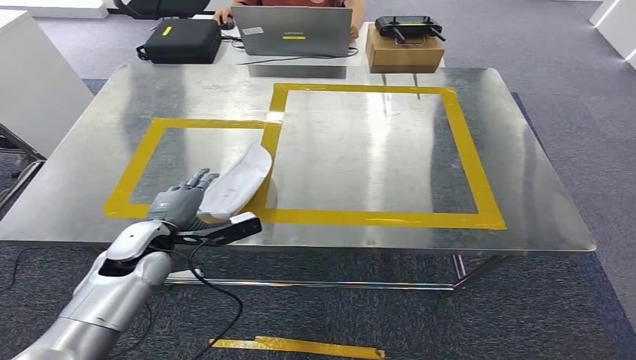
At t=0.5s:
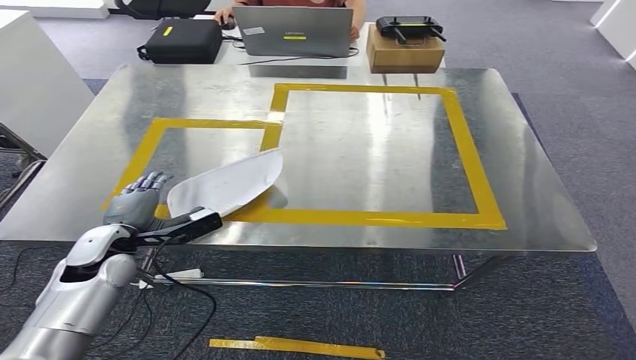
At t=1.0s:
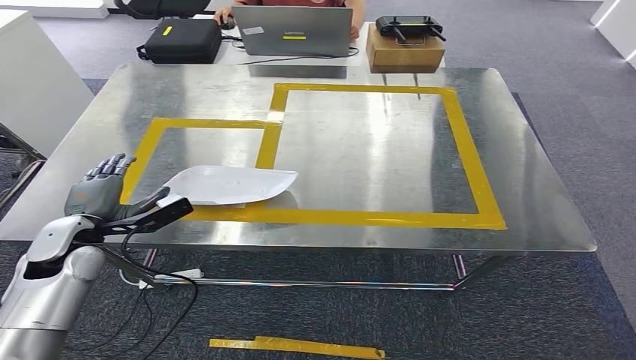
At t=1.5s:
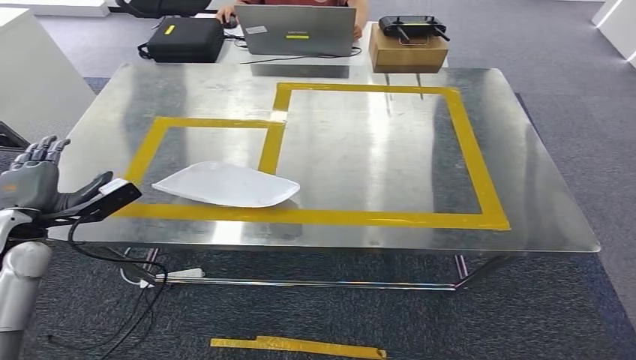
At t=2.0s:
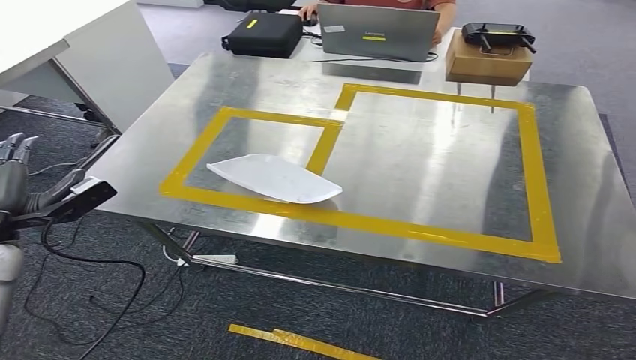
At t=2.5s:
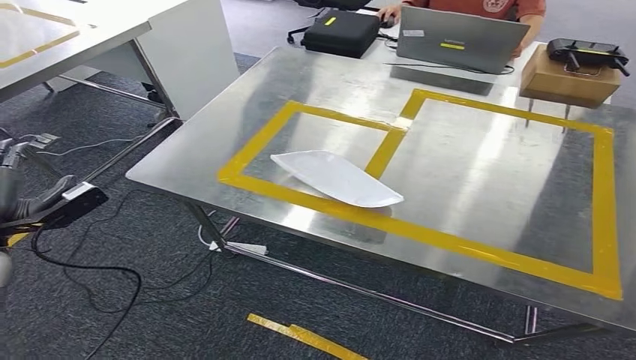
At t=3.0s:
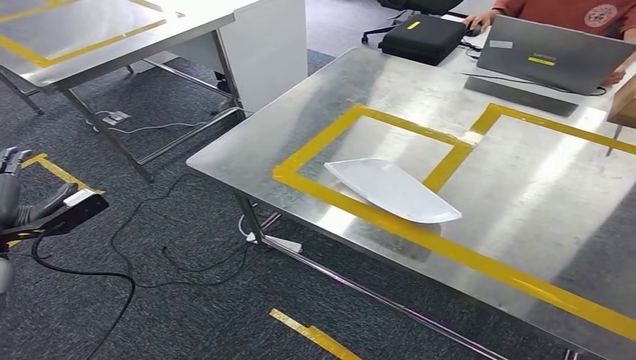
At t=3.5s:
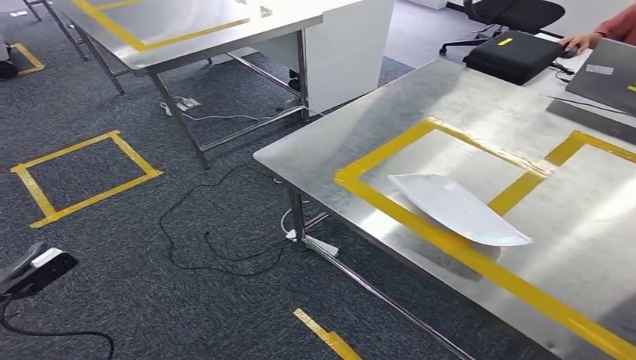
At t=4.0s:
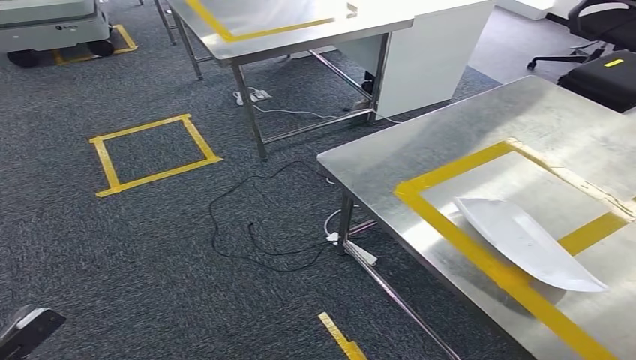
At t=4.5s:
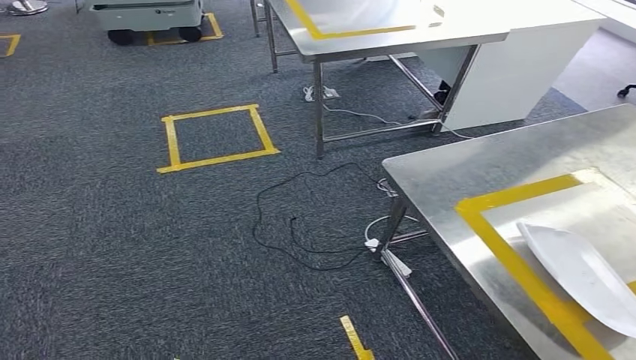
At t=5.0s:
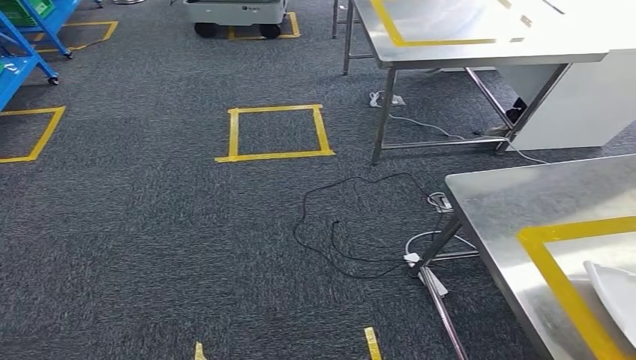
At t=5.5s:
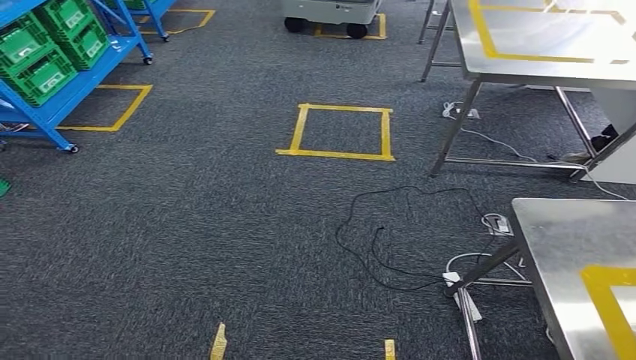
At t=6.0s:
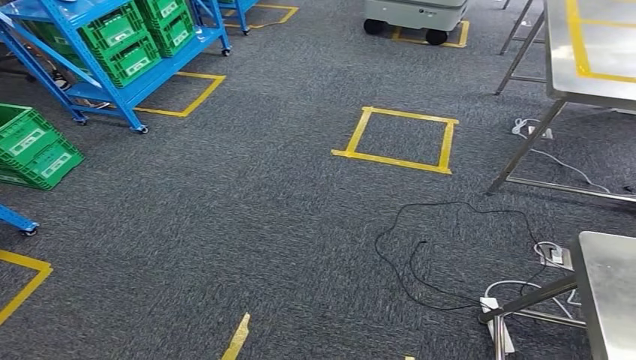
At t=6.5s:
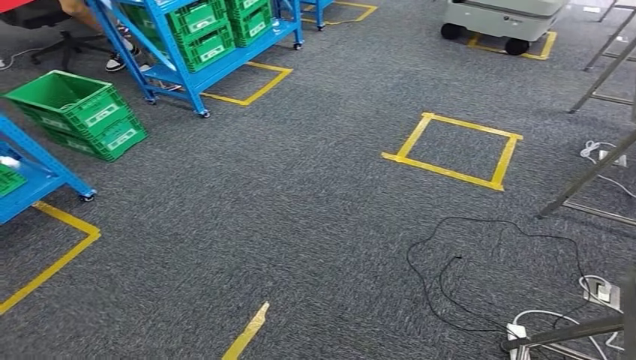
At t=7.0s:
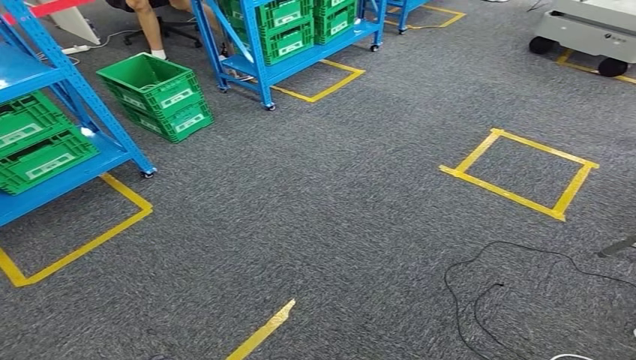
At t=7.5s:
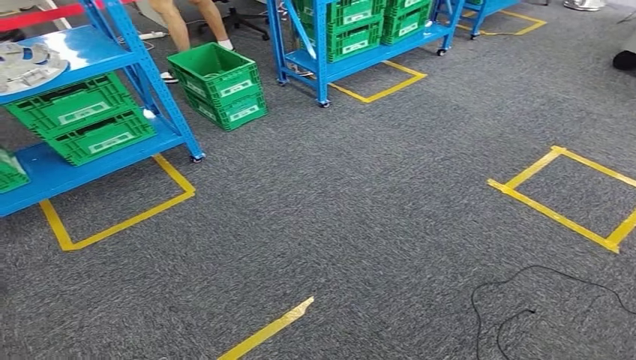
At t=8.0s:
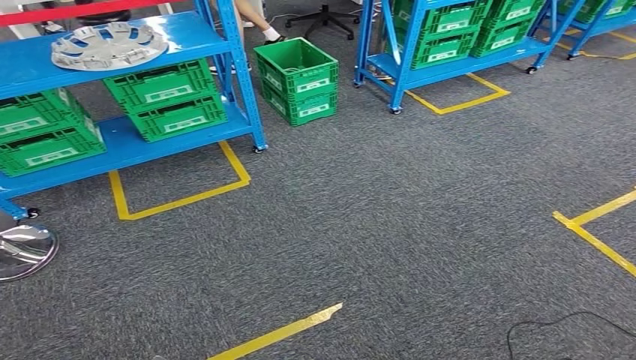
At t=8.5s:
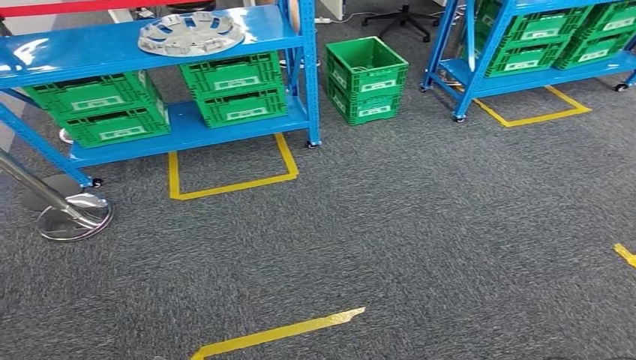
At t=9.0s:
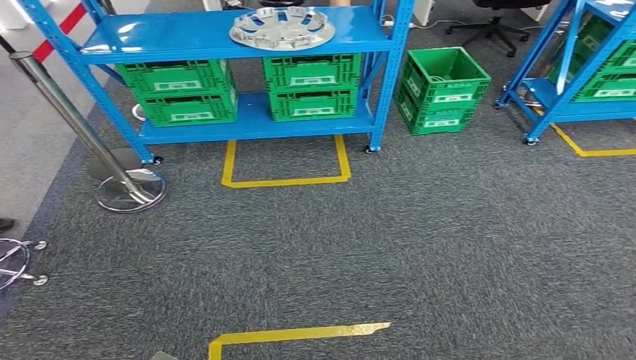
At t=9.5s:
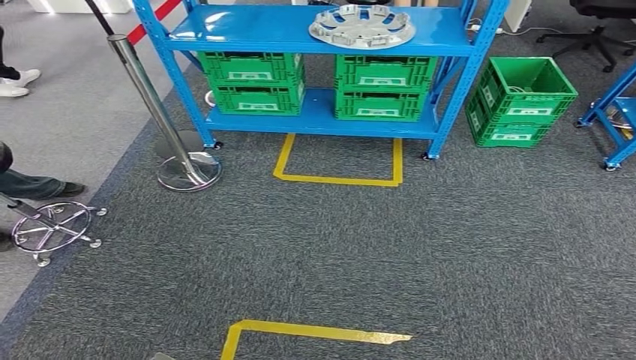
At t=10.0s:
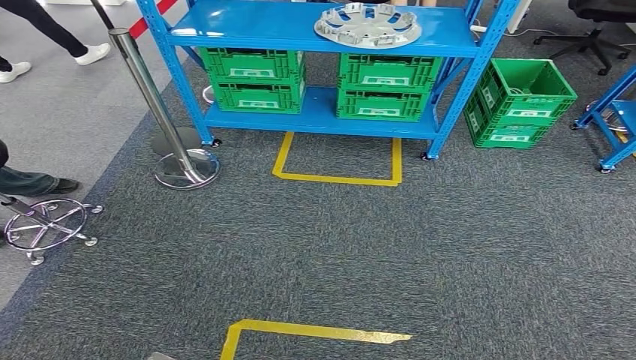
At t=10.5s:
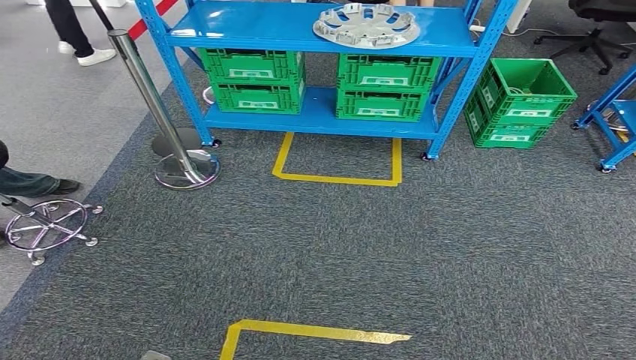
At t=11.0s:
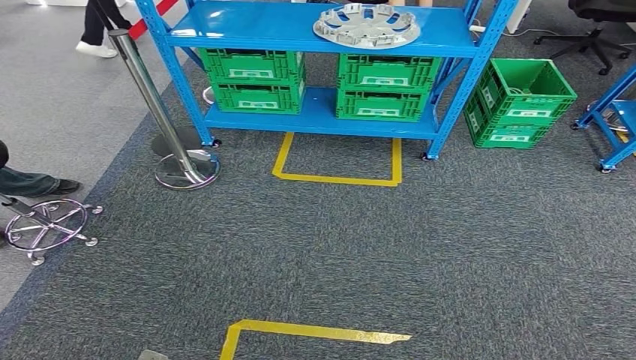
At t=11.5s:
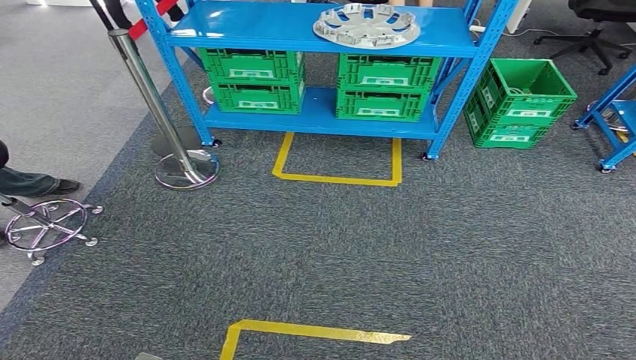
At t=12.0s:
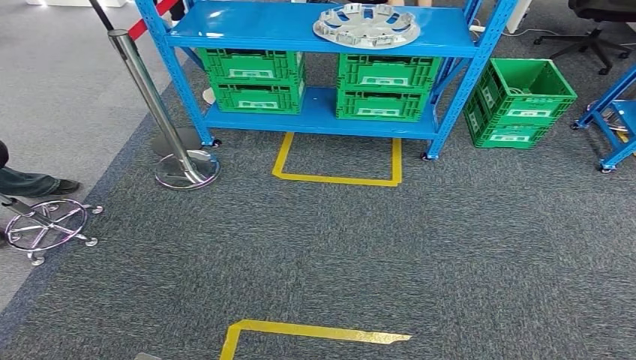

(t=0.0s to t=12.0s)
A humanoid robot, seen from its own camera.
Step, t=0.0s - t=2.5s: Insert the small parts into the corresponding slots on the workbench.
t=10.0s - t=12.0s: The hands stay close to where they were, moving slightly.

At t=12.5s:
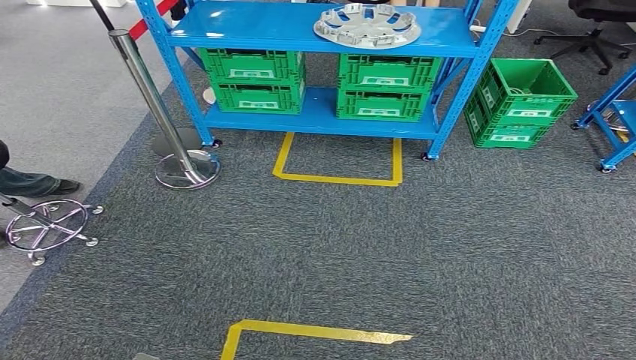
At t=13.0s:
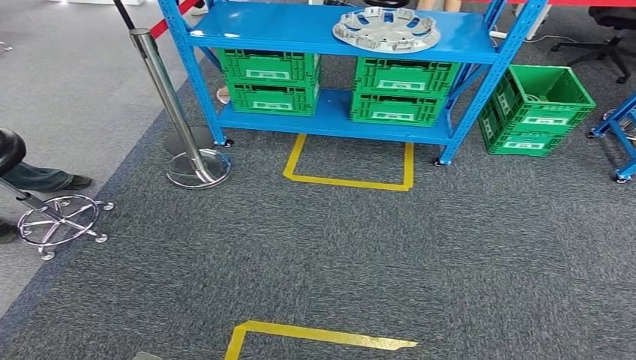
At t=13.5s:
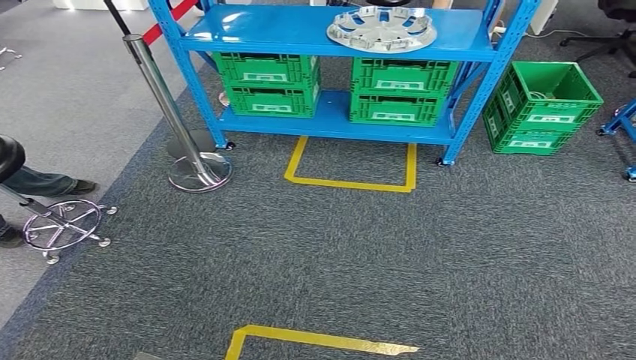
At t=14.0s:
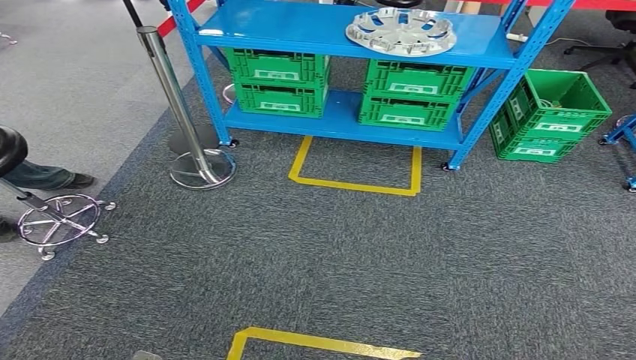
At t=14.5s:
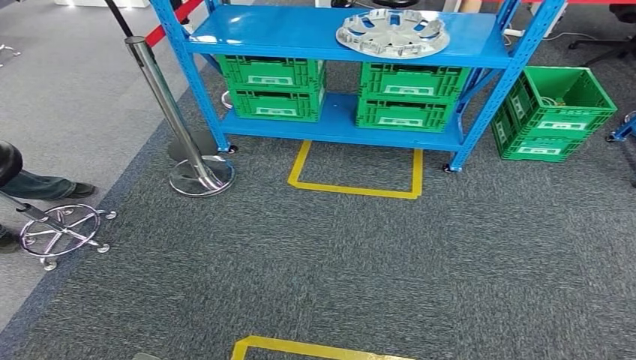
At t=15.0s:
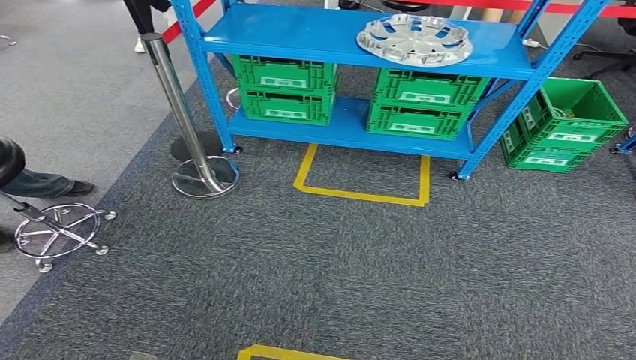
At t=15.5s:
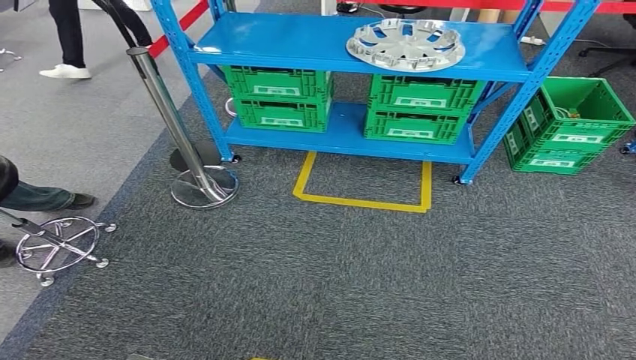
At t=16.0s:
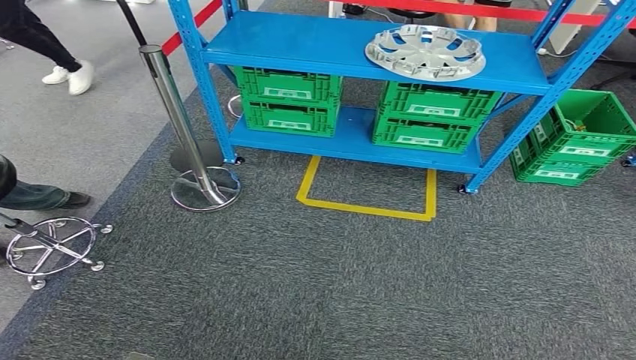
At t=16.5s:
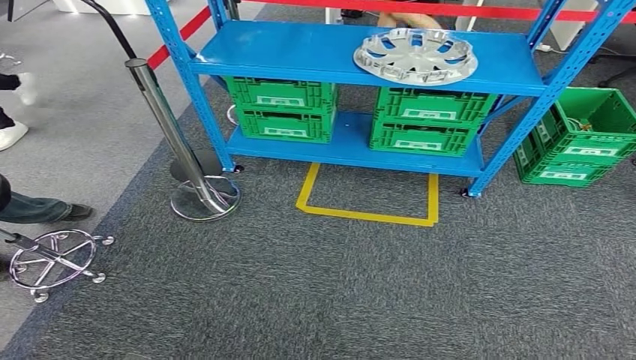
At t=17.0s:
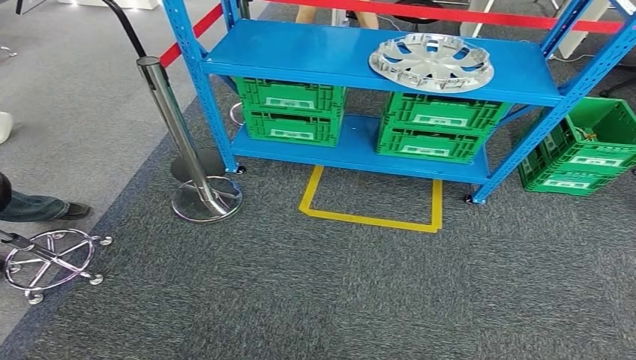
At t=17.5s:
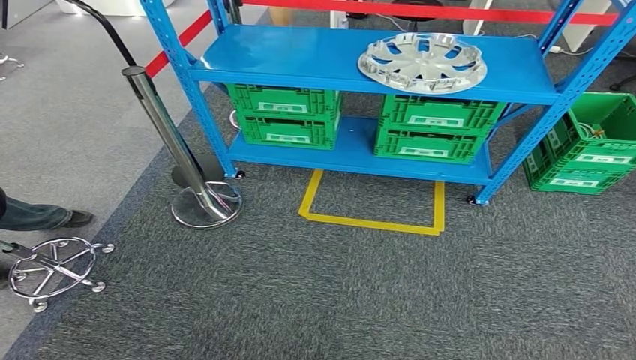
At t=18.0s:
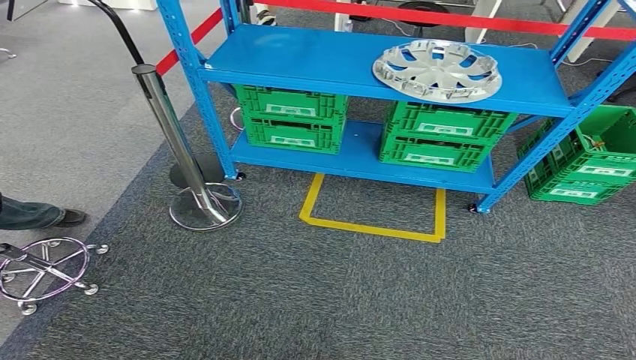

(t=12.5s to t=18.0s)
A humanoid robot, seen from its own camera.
Step, t=12.5s - t=18.0s: Return to the initial position at the workbench.
